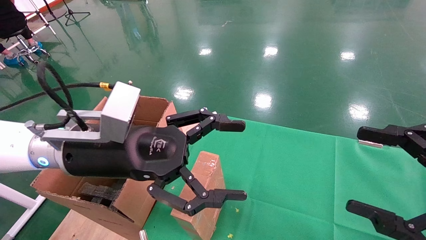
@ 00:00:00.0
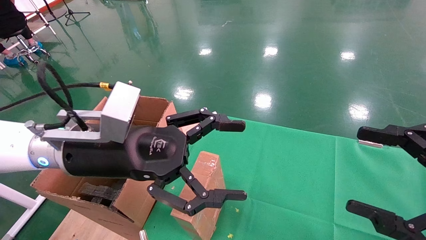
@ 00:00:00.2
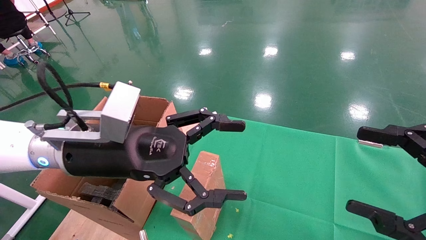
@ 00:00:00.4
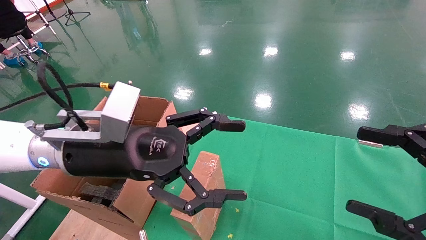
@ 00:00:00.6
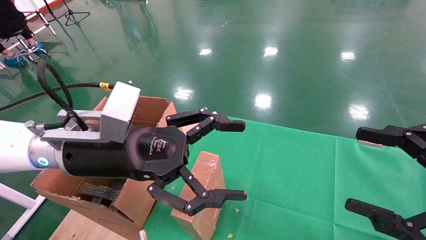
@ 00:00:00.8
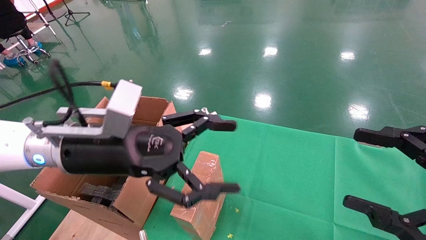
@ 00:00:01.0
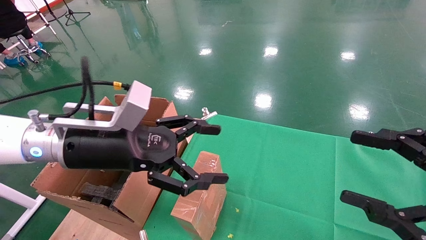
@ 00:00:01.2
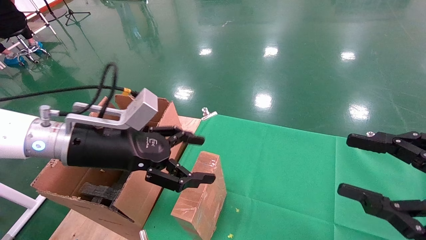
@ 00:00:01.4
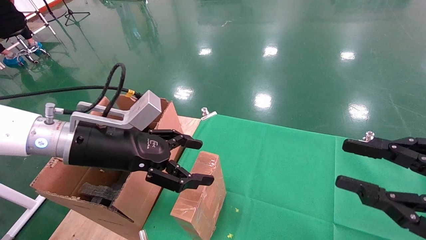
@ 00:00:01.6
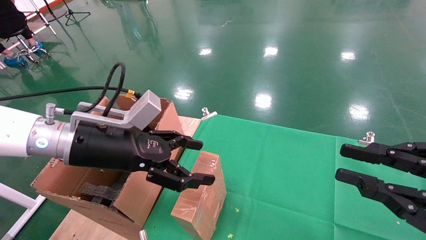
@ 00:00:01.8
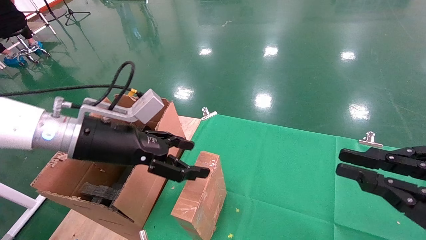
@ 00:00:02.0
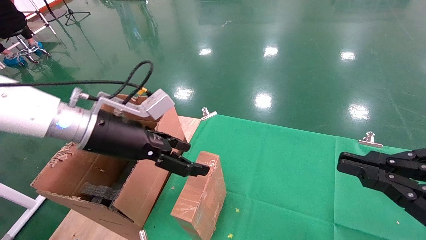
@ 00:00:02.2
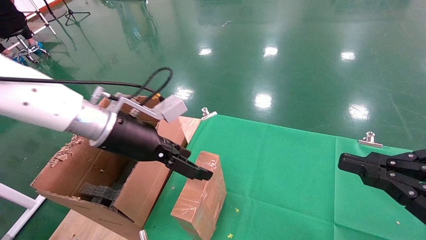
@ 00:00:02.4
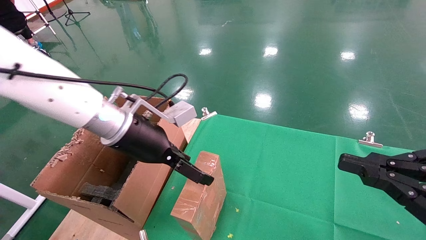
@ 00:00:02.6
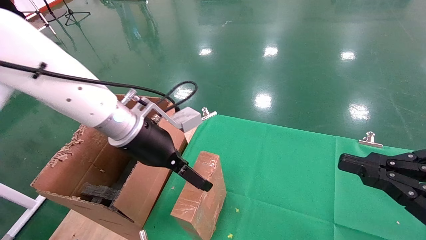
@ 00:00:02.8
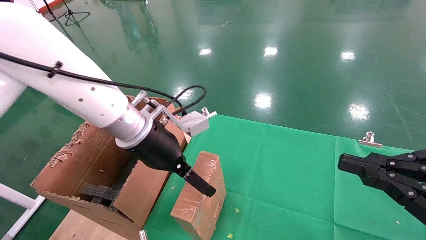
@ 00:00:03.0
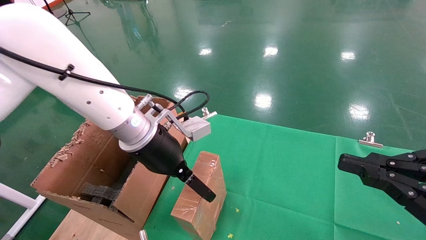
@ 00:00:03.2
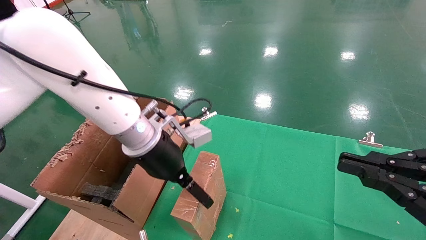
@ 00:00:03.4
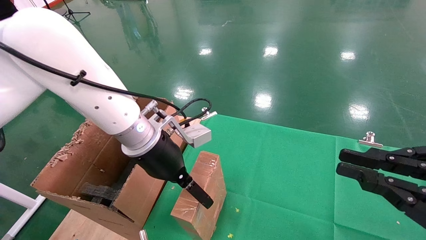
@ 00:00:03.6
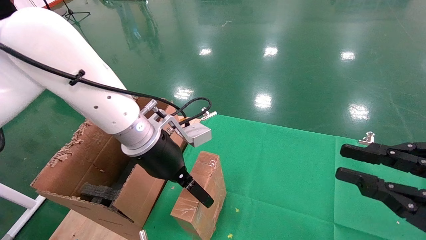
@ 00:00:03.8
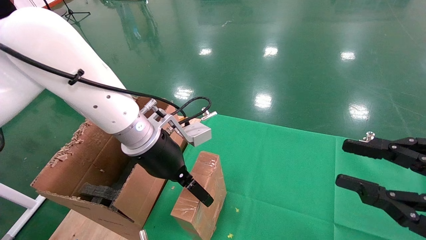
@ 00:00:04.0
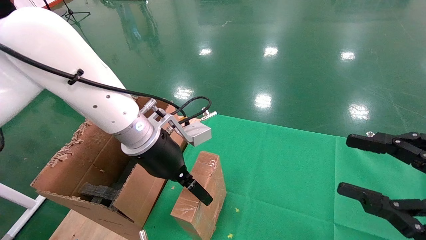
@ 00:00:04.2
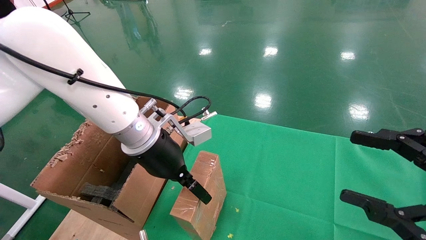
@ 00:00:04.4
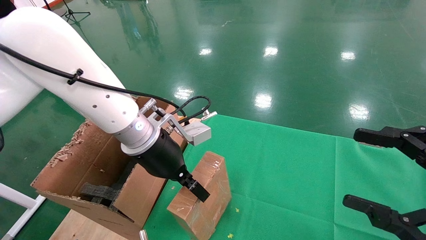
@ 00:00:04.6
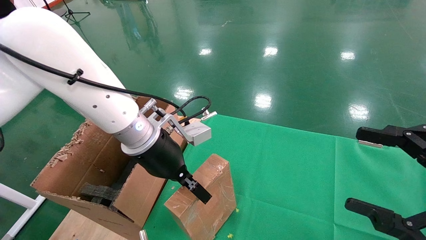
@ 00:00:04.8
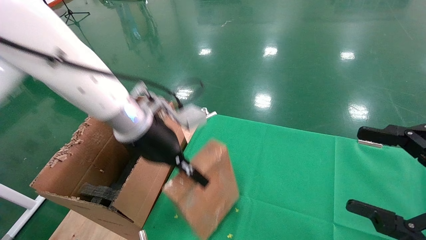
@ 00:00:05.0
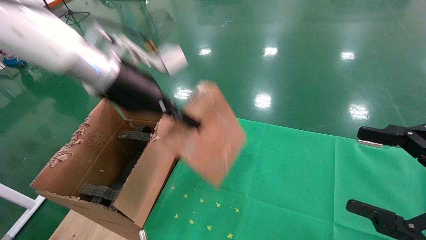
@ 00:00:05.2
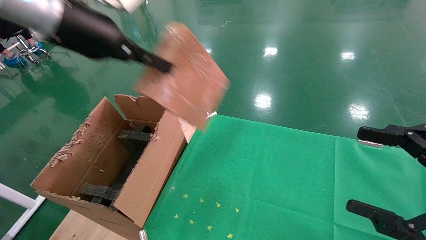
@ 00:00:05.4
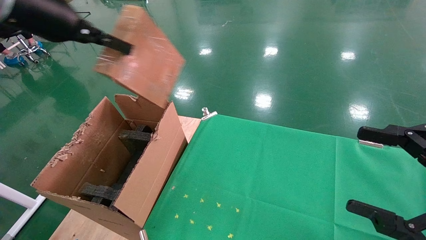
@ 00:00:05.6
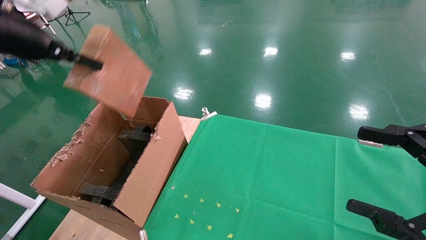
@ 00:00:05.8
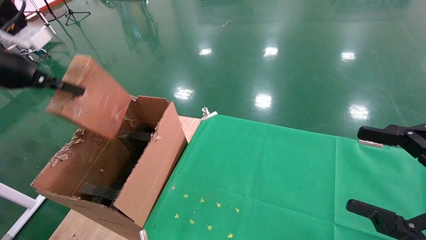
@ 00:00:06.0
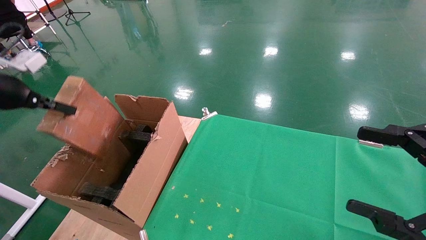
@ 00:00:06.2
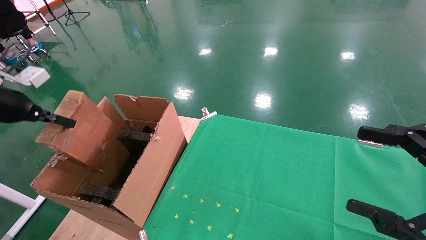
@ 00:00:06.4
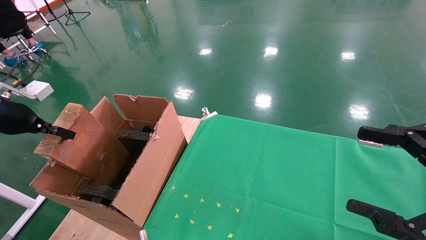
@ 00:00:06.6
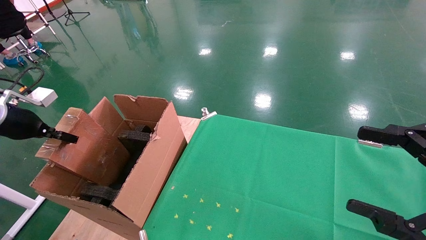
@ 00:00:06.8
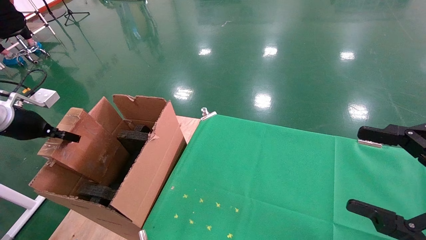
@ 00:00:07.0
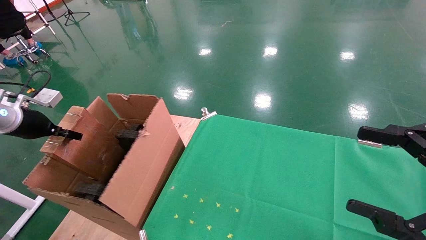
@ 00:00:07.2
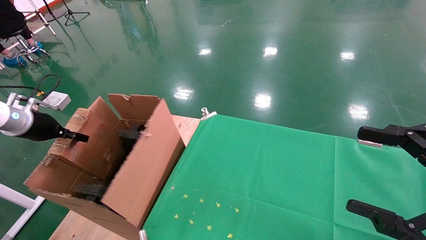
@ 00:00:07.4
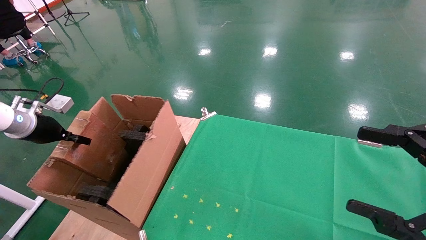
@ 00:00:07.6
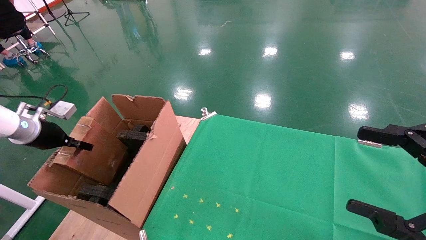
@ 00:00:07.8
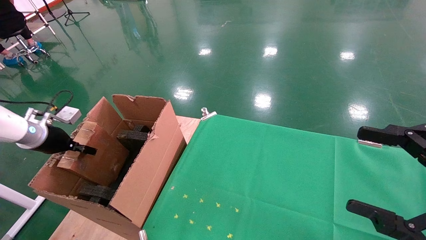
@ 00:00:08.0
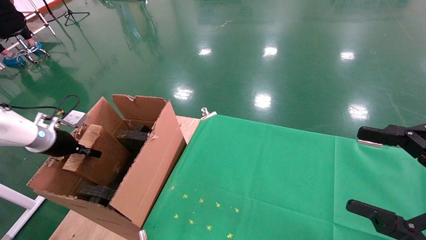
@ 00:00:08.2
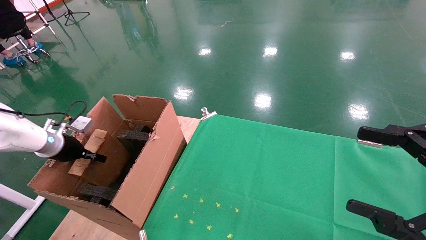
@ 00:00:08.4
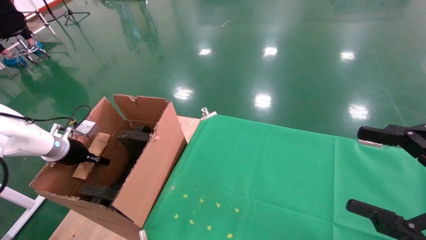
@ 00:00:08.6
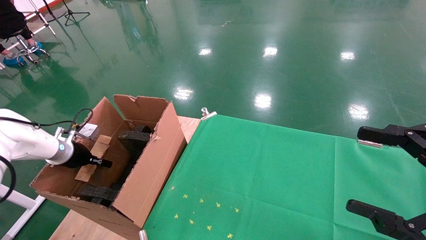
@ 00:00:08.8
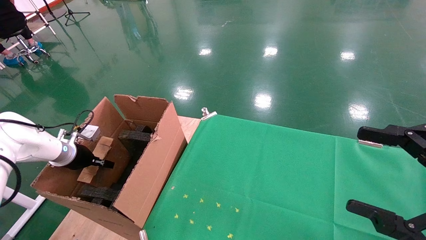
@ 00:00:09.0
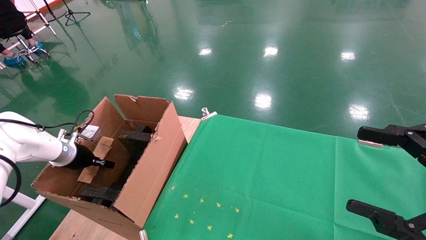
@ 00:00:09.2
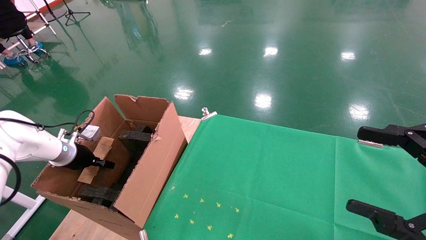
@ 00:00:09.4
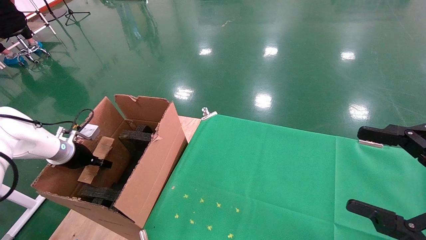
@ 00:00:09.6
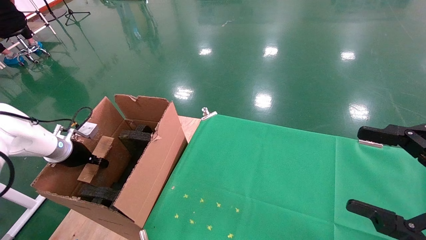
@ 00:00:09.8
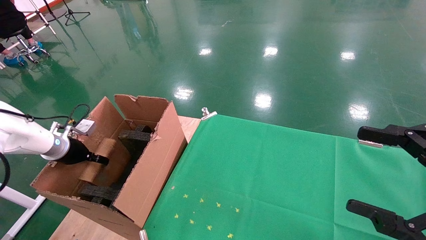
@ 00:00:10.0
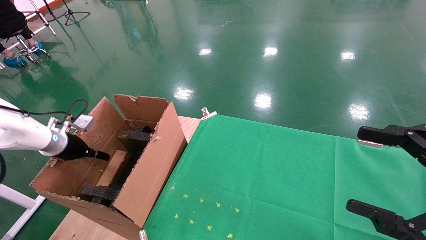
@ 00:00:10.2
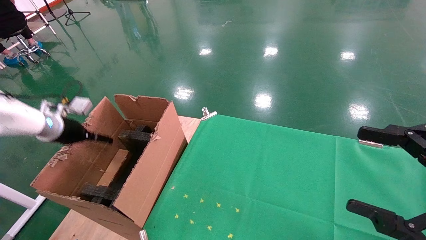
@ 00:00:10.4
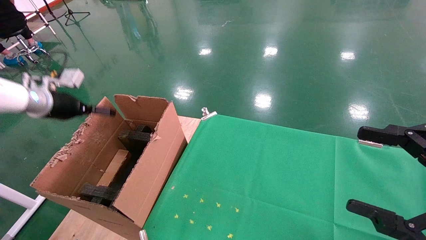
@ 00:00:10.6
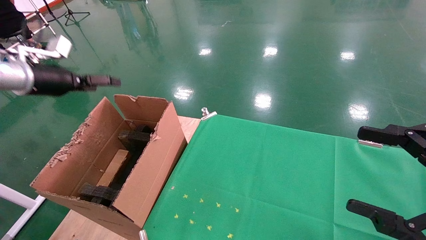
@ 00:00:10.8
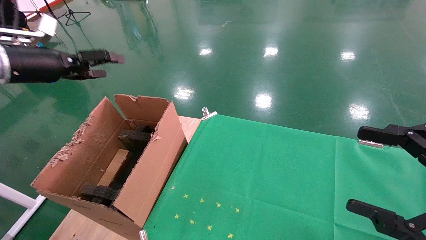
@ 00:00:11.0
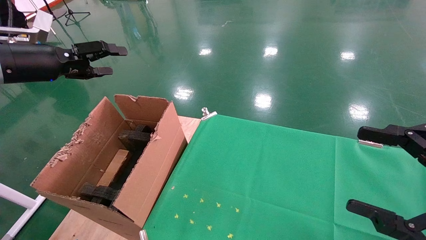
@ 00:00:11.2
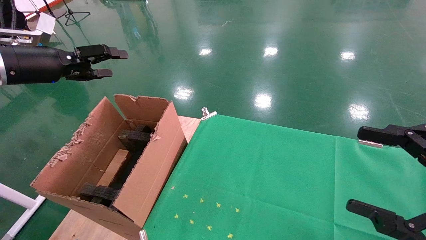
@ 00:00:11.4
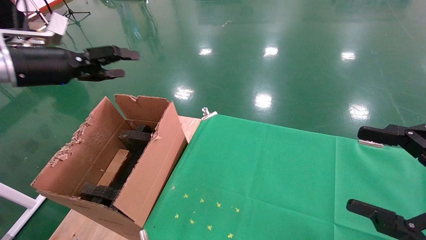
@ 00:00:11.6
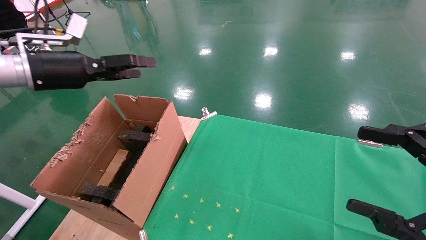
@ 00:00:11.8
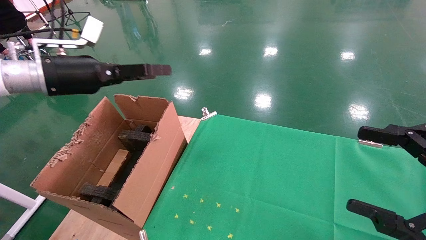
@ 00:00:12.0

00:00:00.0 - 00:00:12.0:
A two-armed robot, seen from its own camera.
Task of the whole recording: using a robotic arm to pick up a cardboard box and palace it the carton.
Step, 00:00:01.2 - 00:00:04.8: Pick up the mouse and the power cord paper box.
Step, 00:00:05.0 - 00:00:11.2: Place the mouse and the power cord paper box into the container.
00:00:00.0 - 00:00:01.6: The right gripper closes its fingers.
00:00:01.6 - 00:00:03.0: The left gripper goes roughly 10 cm to the right and forward. The right gripper closes.
00:00:03.0 - 00:00:04.4: The left gripper closes up. The right gripper opens up.
00:00:04.4 - 00:00:06.0: The left gripper shifts roughly 35 cm to the left and upward, and closes. The right gripper opens its fingers.
00:00:06.0 - 00:00:07.6: The left gripper goes roughly 15 cm downward.
00:00:07.6 - 00:00:09.0: The left gripper moves downward, approximately 10 cm.
00:00:09.0 - 00:00:10.4: The left gripper moves upward, about 10 cm, and opens.
00:00:10.4 - 00:00:12.0: The left gripper goes roughly 20 cm to the right, upward and backward.

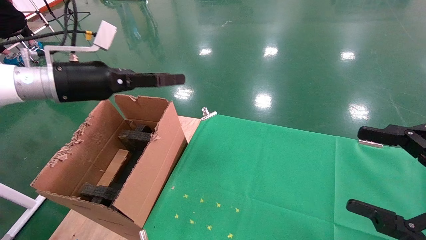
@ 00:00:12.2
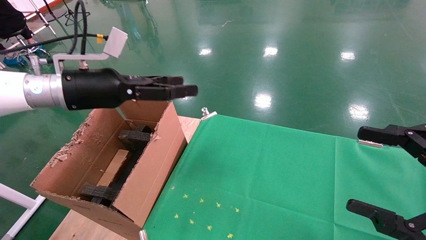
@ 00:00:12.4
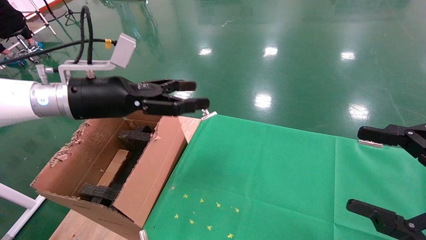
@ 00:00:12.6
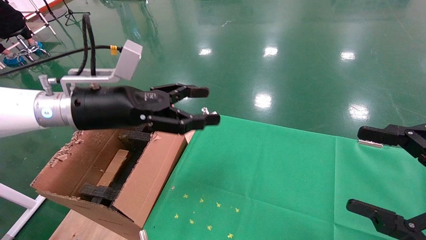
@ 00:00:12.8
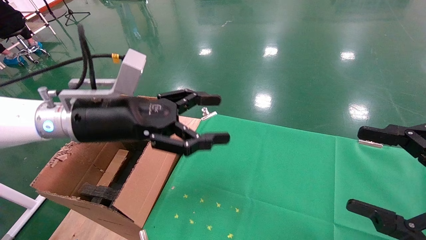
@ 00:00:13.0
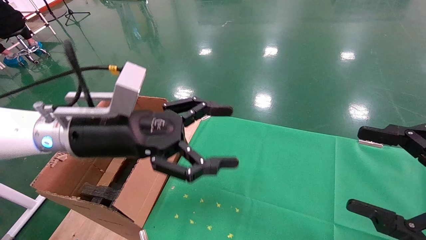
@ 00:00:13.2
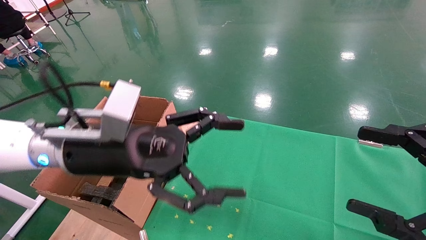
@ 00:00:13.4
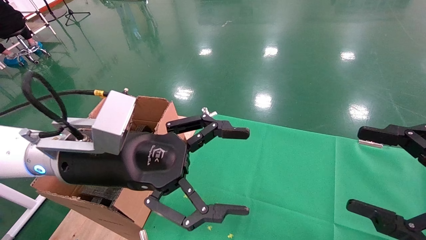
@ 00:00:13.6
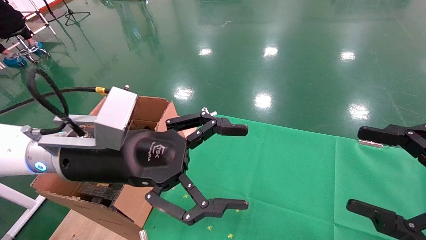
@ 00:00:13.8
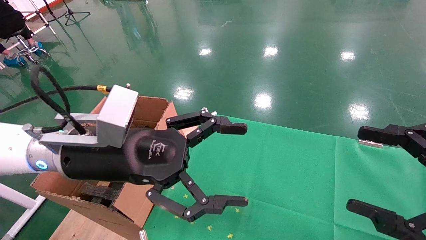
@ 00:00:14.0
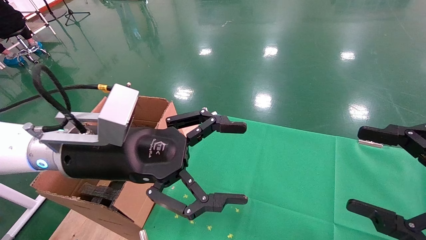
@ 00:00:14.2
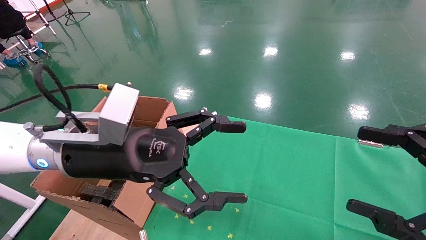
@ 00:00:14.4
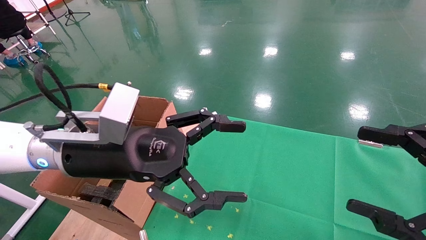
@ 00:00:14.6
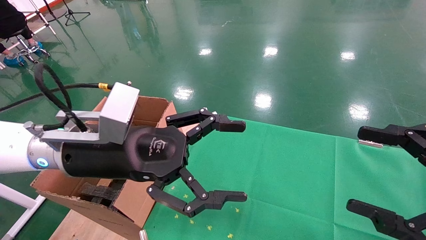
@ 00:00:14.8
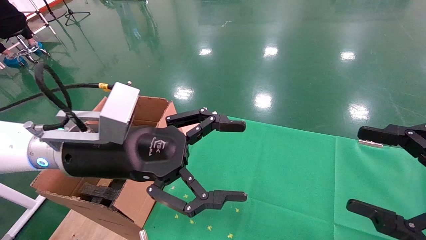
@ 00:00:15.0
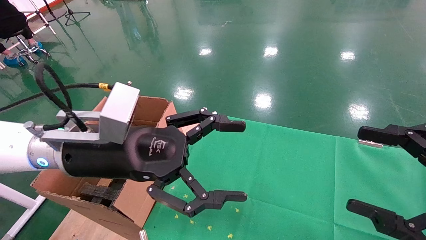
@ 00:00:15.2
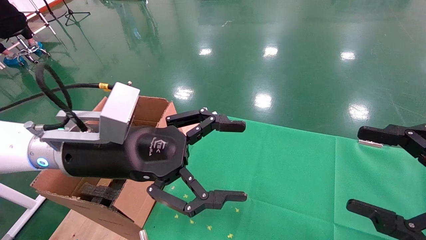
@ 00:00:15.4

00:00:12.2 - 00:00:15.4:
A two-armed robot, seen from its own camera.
Task of the whole recording: using a robotic arm to pick up a cardboard box and palace it the carton.
00:00:12.2 - 00:00:13.8: The left gripper goes roughly 20 cm to the right, backward and downward.
00:00:13.8 - 00:00:15.4: Both grippers stay put.
